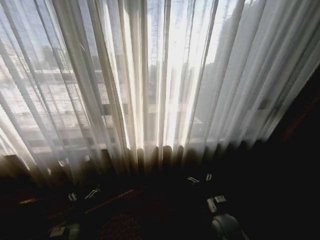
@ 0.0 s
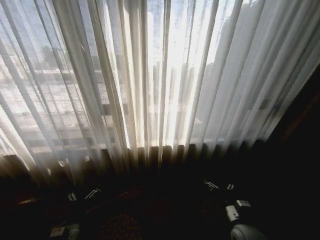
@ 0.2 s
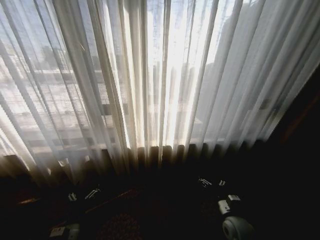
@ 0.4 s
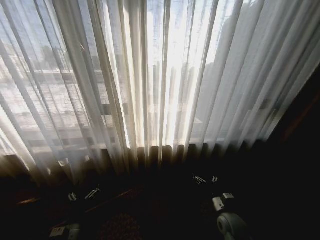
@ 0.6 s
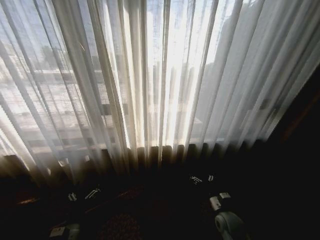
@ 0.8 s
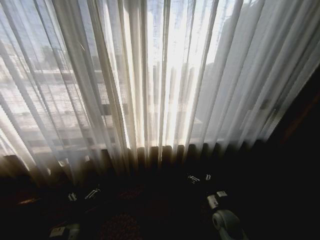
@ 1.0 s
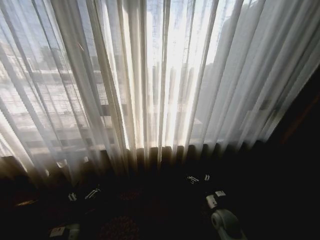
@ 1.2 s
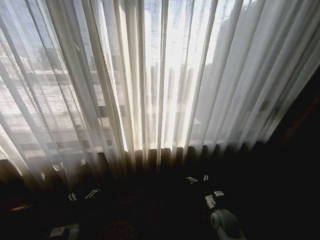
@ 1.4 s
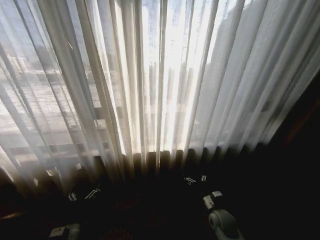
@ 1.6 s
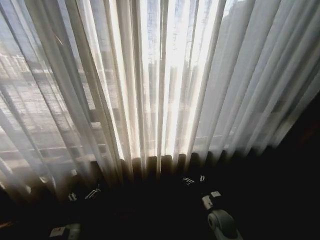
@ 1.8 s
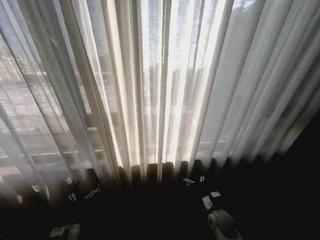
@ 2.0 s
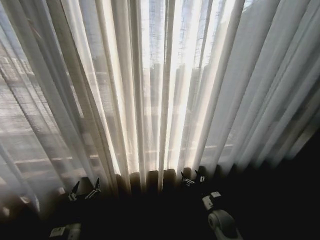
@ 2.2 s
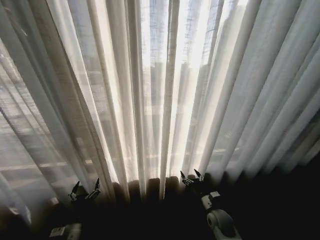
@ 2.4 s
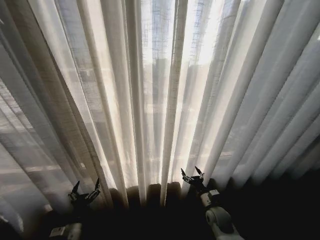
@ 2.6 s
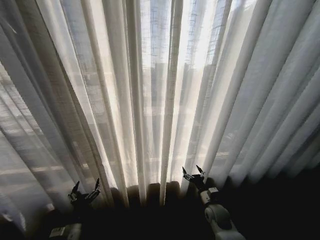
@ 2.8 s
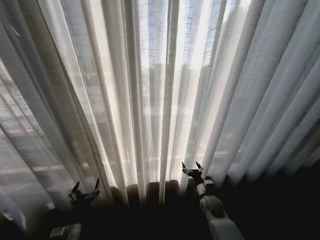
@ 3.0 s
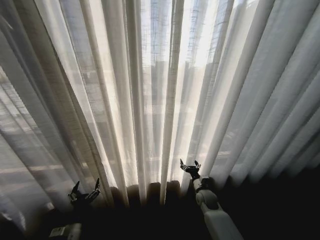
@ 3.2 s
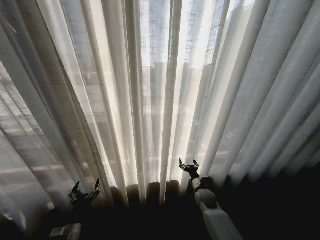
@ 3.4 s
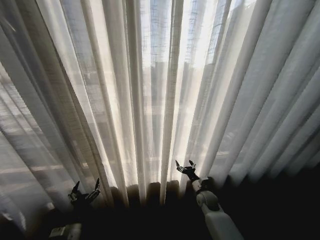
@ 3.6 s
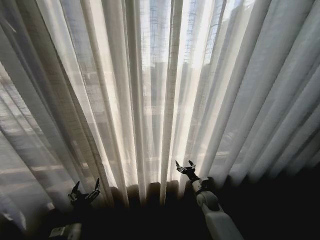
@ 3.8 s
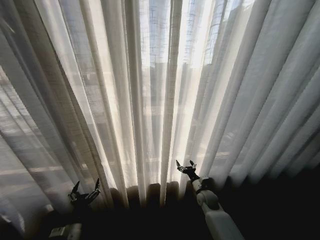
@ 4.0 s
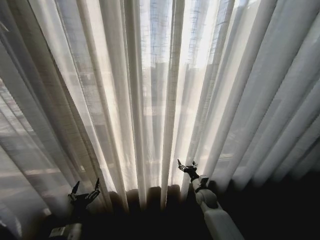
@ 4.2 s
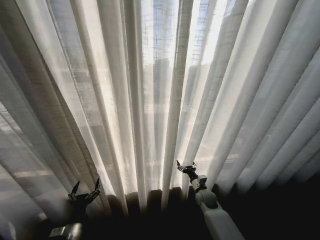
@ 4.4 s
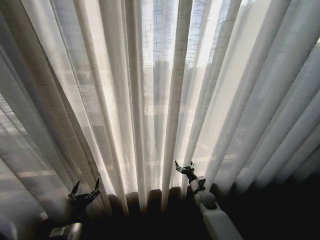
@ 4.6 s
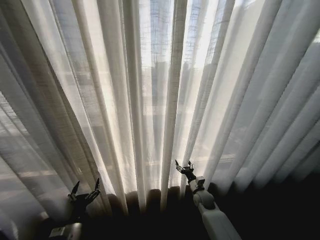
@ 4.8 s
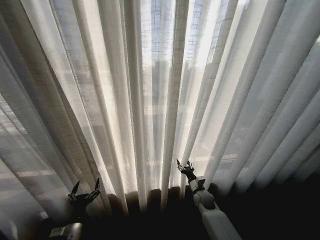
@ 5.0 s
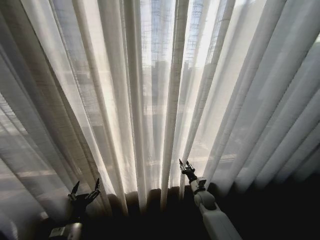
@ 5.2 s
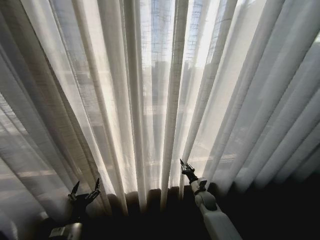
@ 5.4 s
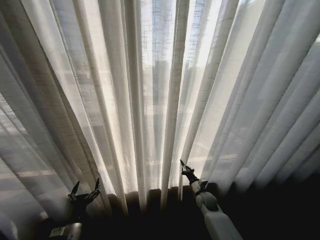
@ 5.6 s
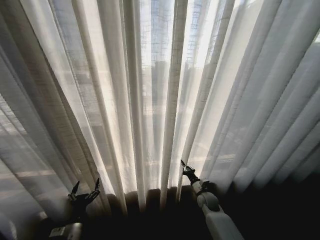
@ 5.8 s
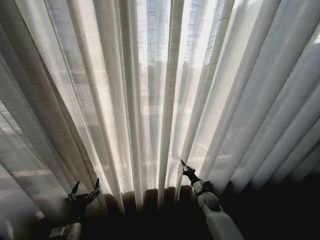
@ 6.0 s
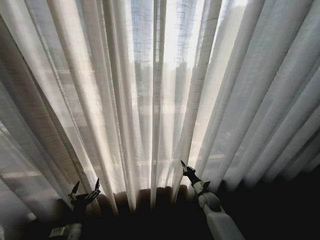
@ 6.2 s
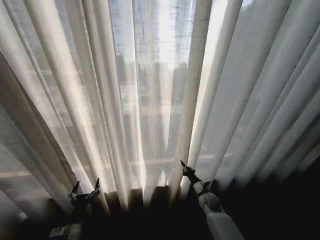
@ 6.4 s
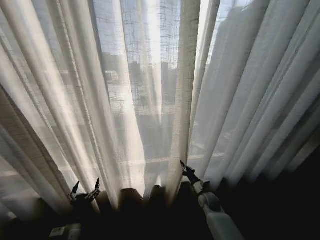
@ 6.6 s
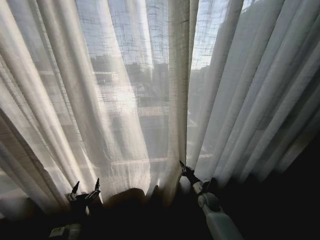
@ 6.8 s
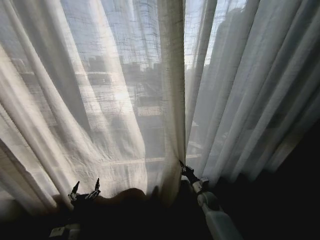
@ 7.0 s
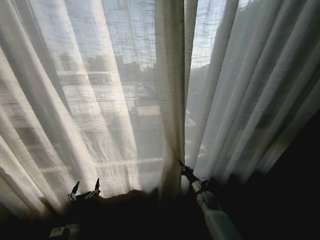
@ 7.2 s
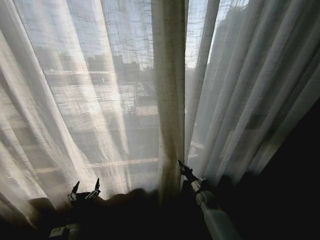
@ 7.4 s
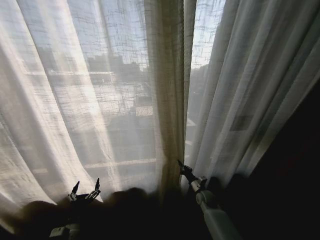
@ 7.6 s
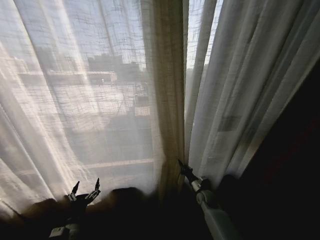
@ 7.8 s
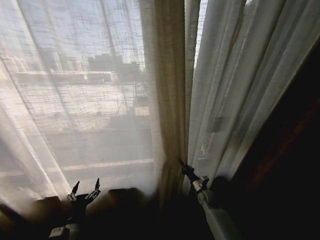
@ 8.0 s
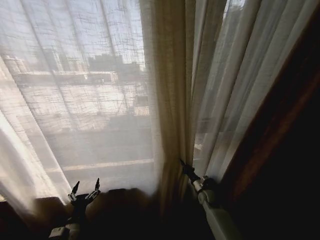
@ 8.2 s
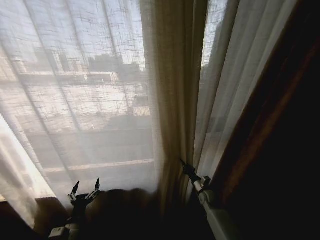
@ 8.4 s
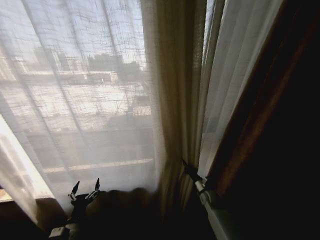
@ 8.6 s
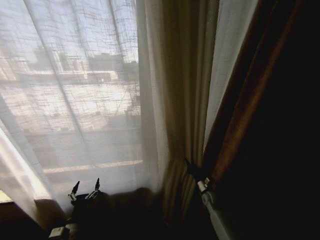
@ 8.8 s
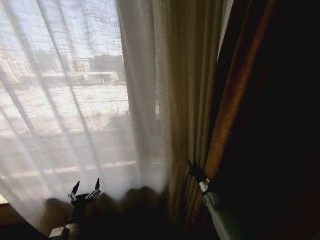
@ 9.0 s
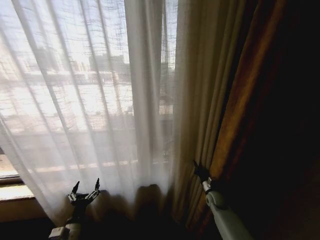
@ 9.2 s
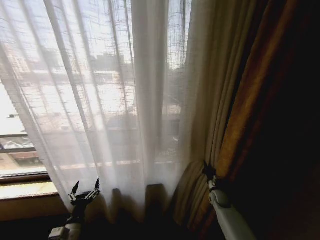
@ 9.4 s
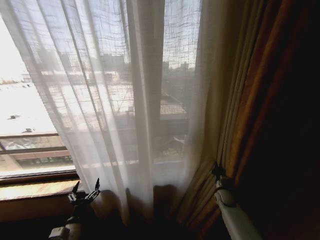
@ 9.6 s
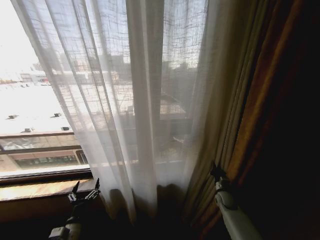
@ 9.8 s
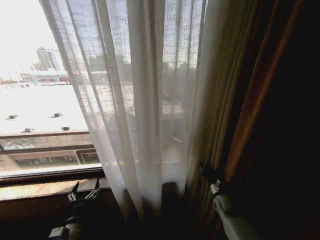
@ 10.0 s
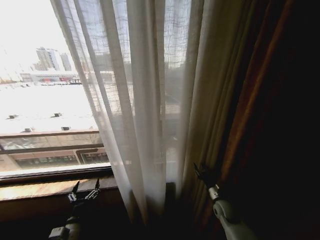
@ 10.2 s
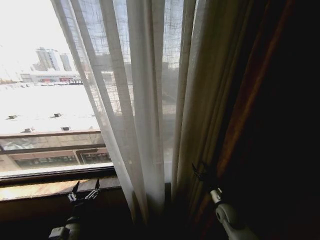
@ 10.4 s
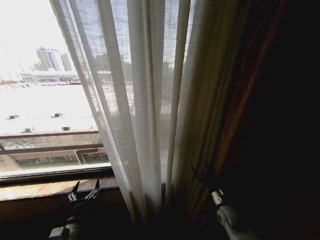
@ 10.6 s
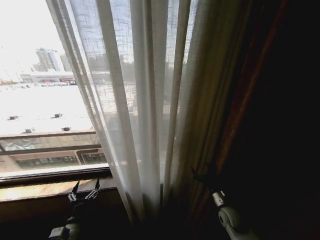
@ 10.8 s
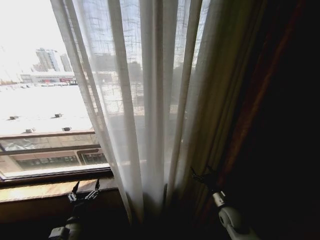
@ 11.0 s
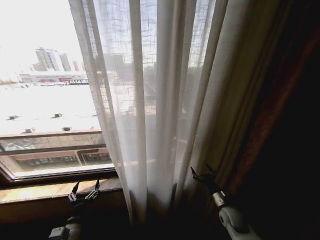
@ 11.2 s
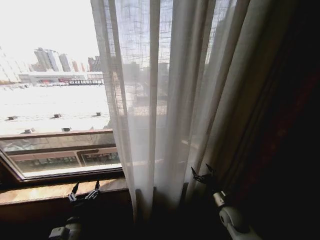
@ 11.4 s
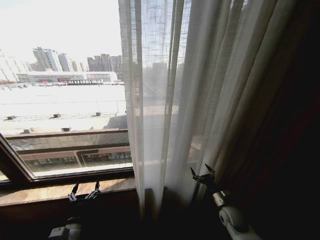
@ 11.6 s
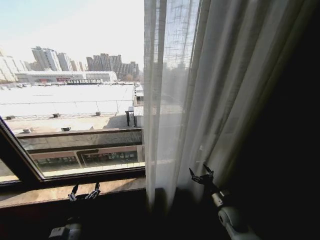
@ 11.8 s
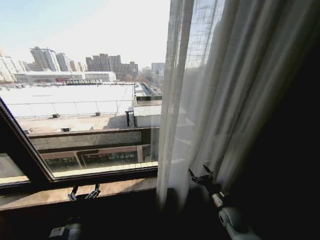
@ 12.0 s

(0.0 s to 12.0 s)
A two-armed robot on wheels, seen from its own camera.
Task of the whole recording: Open the curtains by pulling them apart, changing their state from closed to fully open.
1.6 s - 3.0 s: The right gripper shifts some 5 cm forward.
4.4 s - 6.0 s: The right gripper closes up.
9.0 s - 10.4 s: The right gripper is displaced backward by roughly 10 cm, and opens up.

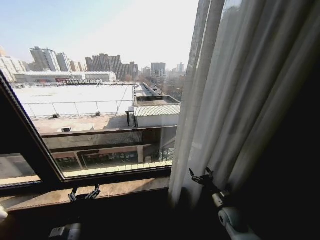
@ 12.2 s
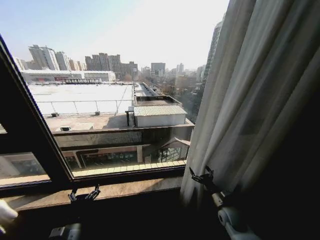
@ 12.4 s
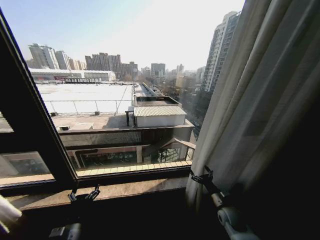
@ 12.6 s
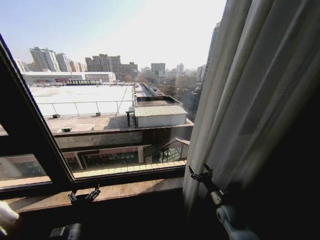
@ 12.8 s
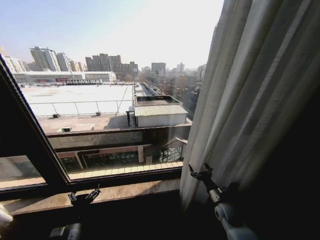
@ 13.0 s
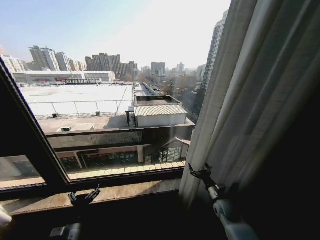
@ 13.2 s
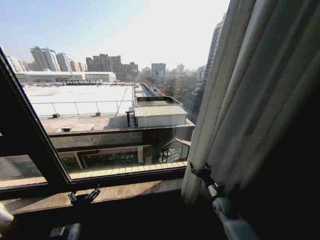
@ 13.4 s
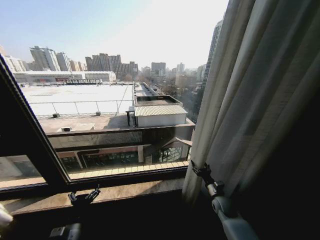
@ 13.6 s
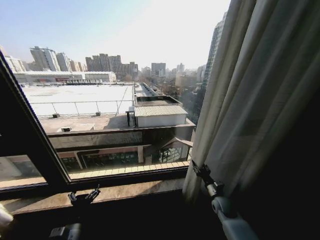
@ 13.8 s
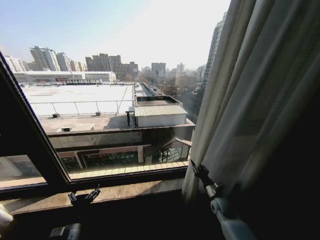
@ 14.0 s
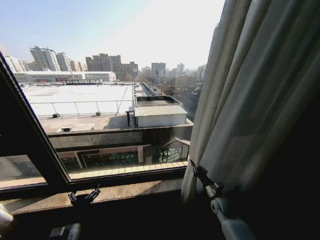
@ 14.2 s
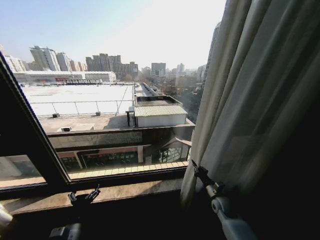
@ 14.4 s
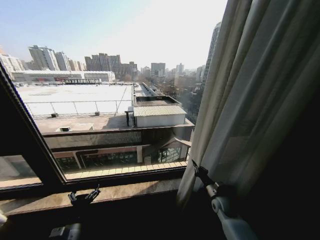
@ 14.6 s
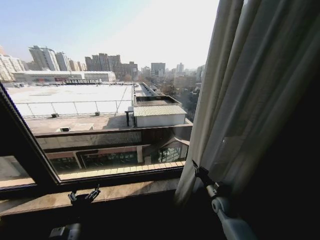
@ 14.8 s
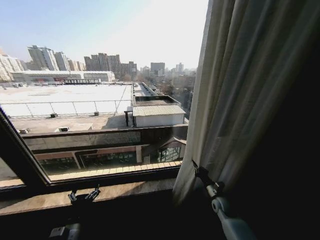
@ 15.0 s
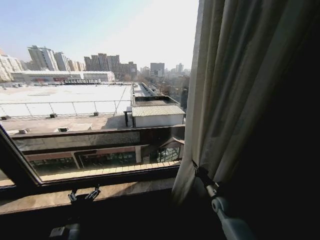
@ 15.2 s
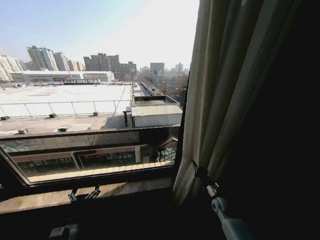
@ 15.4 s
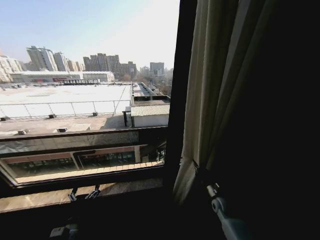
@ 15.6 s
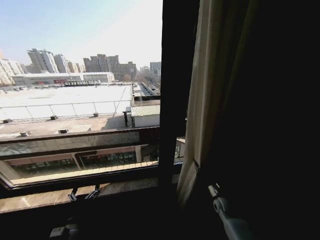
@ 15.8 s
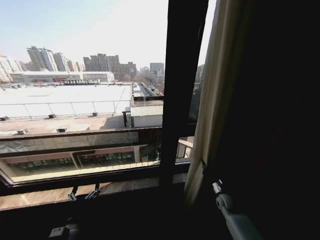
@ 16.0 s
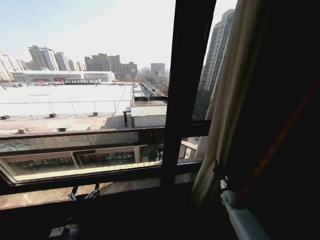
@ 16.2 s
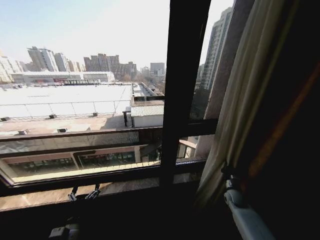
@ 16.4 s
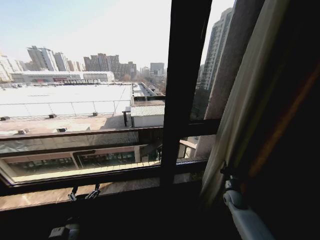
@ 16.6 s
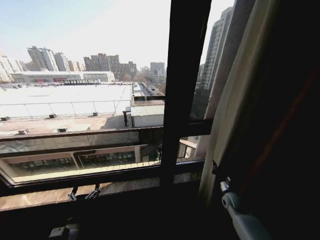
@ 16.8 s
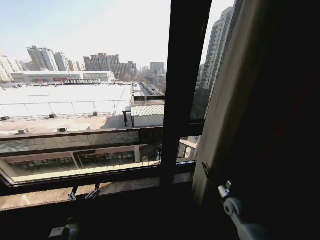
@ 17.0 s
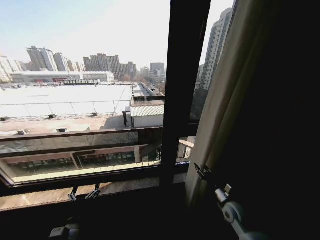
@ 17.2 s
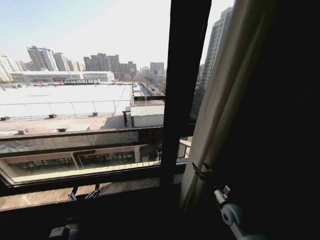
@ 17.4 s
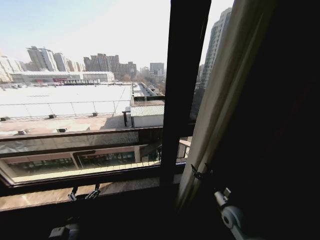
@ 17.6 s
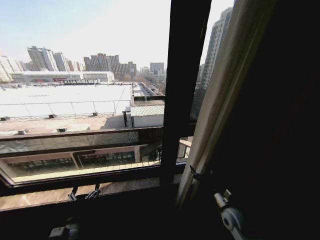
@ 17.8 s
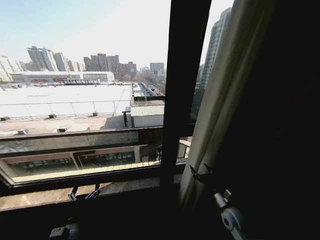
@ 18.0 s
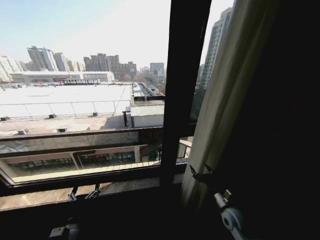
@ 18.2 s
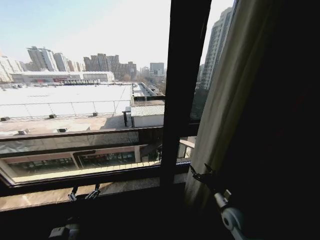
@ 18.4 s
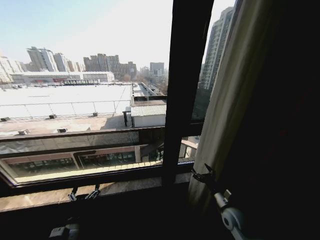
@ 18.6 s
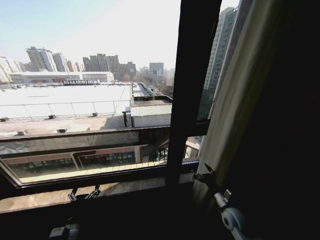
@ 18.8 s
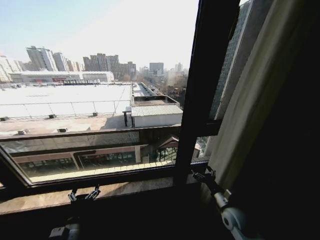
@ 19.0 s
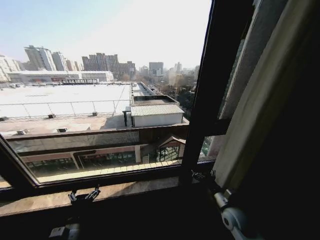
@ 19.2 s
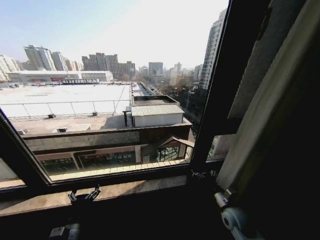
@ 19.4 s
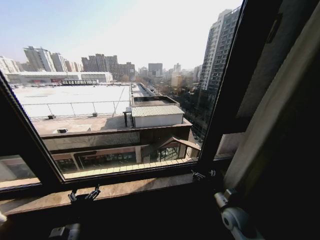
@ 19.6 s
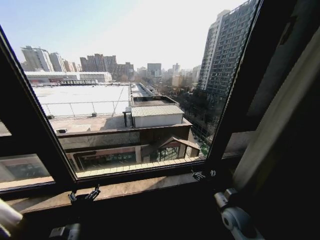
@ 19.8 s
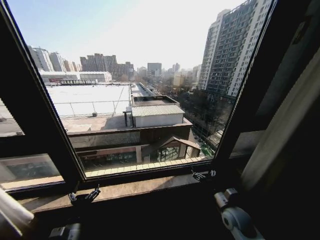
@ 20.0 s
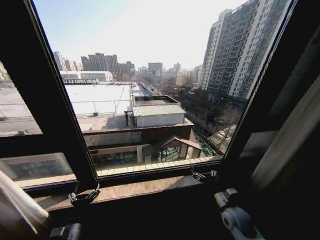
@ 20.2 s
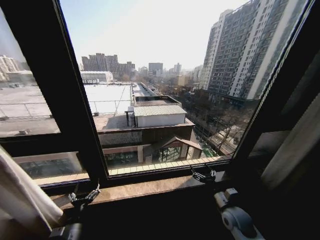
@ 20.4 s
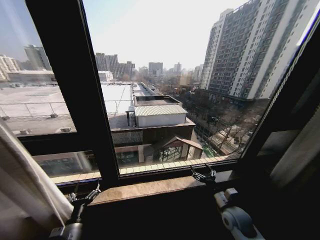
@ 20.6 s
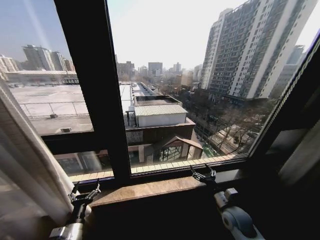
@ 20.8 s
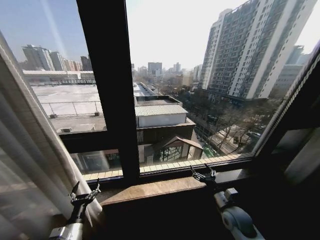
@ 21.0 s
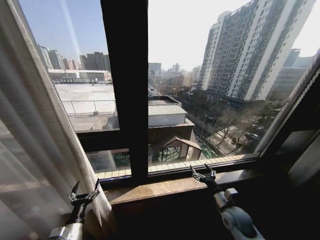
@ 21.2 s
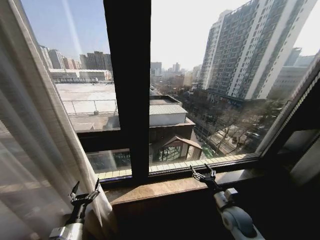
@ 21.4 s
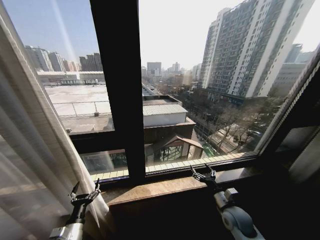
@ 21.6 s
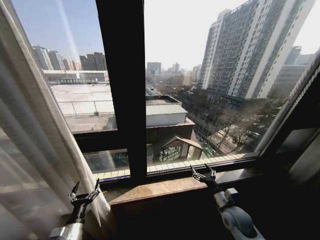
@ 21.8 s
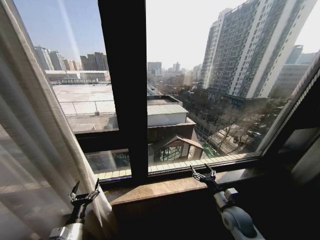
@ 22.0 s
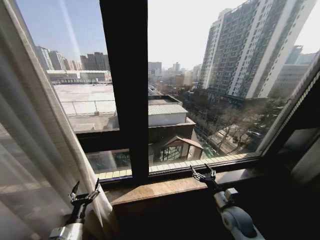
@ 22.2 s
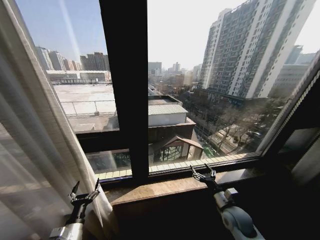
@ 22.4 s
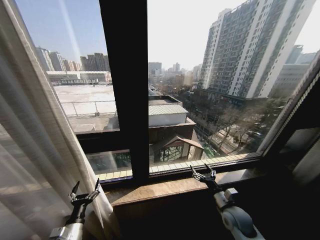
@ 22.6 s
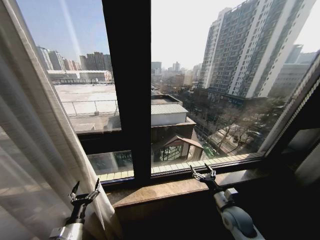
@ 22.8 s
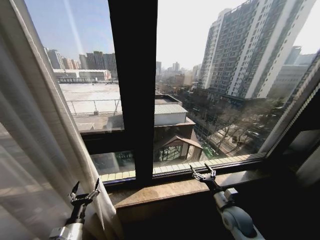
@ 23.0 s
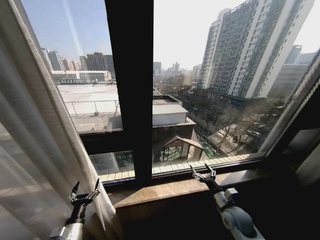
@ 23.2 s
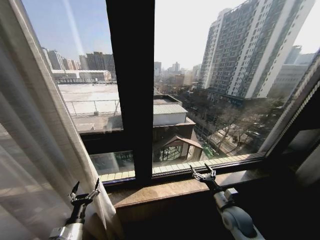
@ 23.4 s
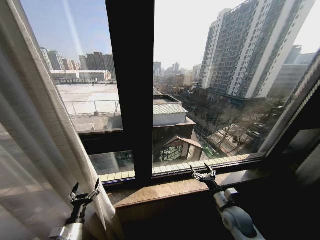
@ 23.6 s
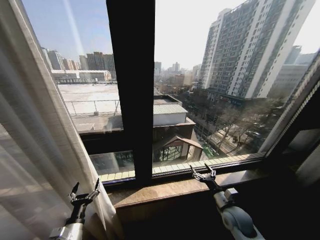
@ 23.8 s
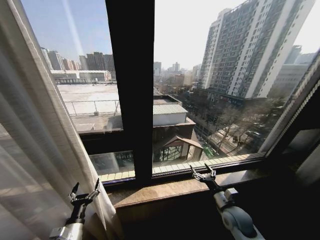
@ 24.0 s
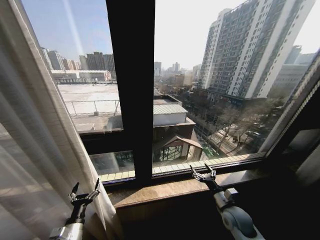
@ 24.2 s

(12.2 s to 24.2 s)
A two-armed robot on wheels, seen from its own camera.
Task of the whole recording: Open the curtains by pulling them apart, changing their state from closed to fully open.
12.2 s - 13.8 s: The right gripper goes about 5 cm forward, and closes.
13.8 s - 15.2 s: The right gripper closes up.
15.2 s - 16.6 s: The right gripper heads to the right, covering roughly 10 cm.
16.6 s - 18.2 s: The right gripper goes roughly 15 cm backward, to the left and upward, and opens its fingers.
21.2 s - 24.2 s: Both grippers stay put.
